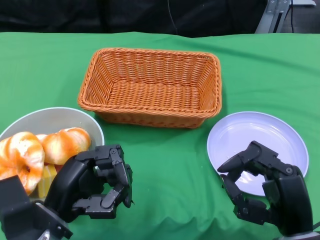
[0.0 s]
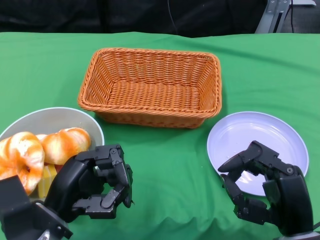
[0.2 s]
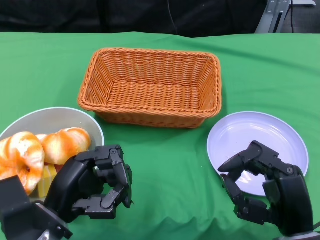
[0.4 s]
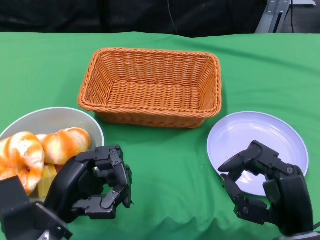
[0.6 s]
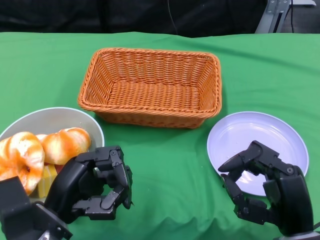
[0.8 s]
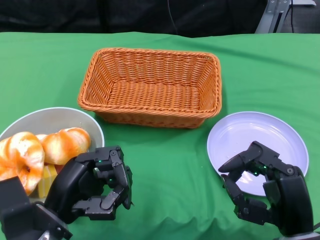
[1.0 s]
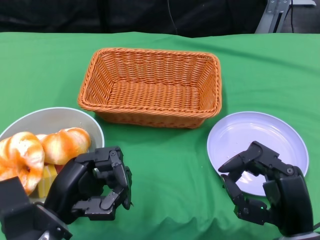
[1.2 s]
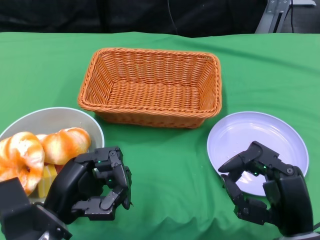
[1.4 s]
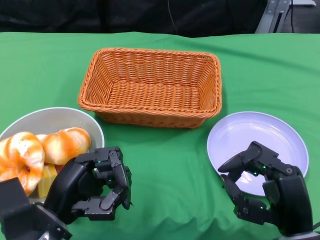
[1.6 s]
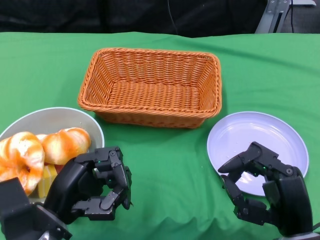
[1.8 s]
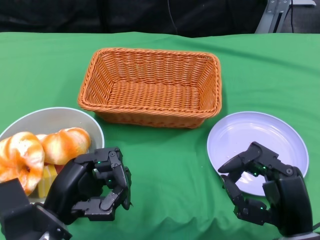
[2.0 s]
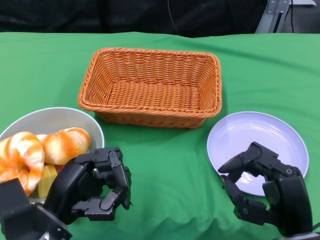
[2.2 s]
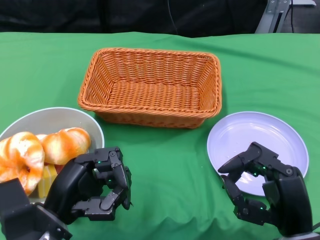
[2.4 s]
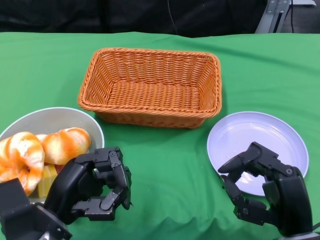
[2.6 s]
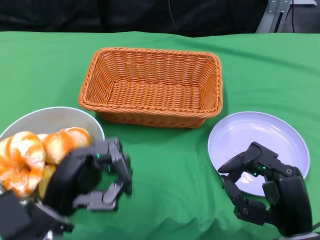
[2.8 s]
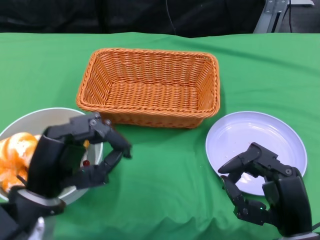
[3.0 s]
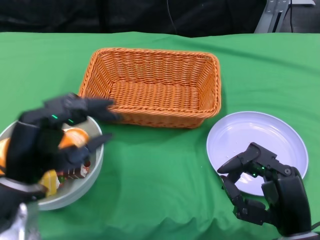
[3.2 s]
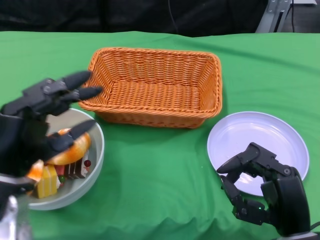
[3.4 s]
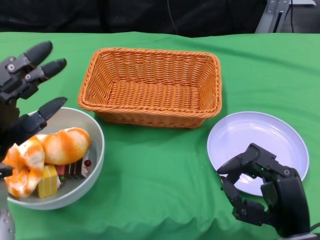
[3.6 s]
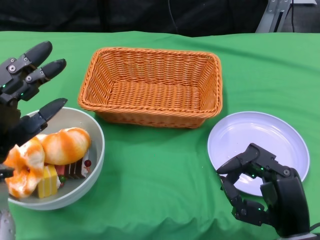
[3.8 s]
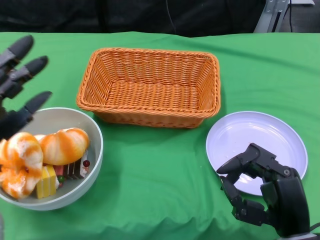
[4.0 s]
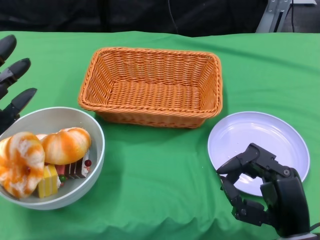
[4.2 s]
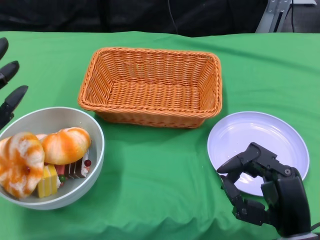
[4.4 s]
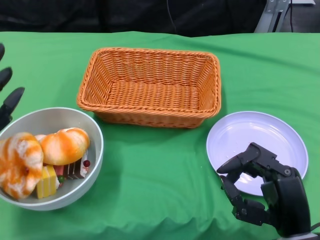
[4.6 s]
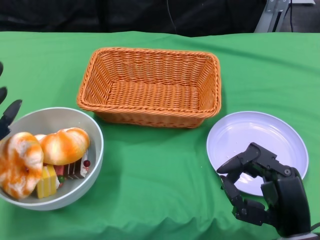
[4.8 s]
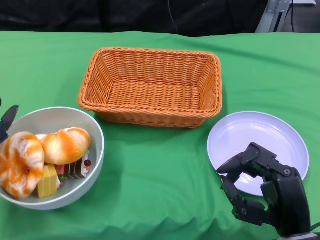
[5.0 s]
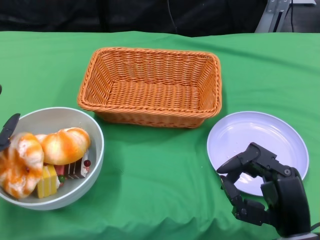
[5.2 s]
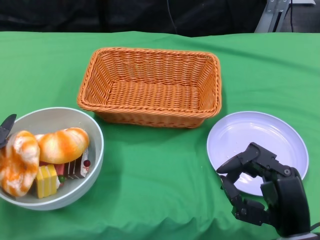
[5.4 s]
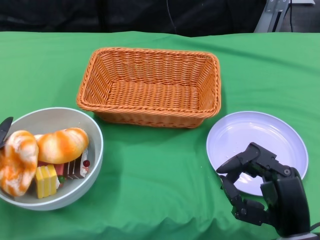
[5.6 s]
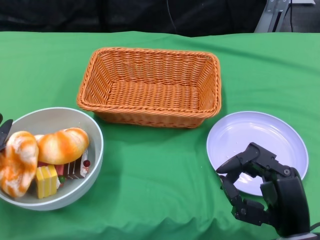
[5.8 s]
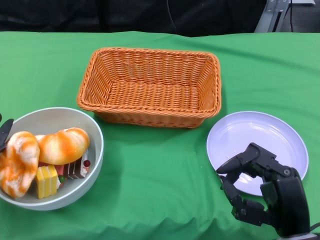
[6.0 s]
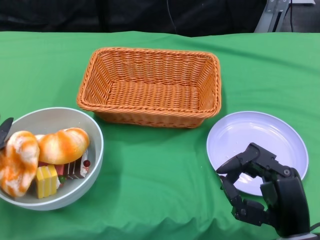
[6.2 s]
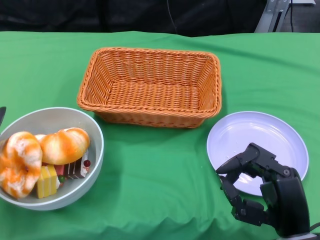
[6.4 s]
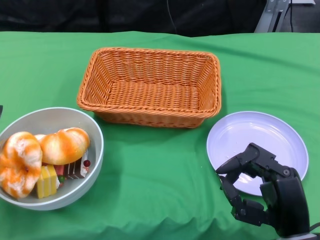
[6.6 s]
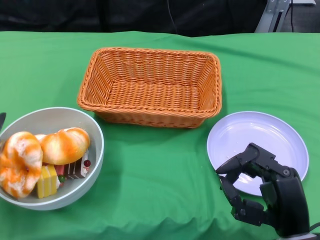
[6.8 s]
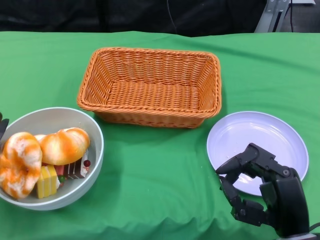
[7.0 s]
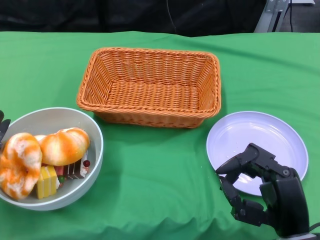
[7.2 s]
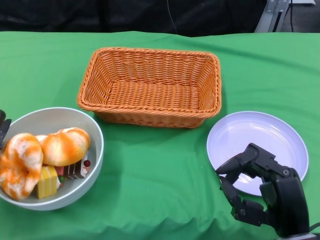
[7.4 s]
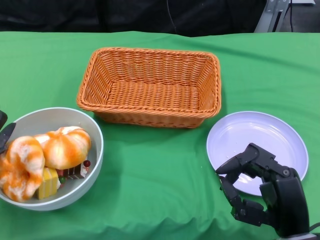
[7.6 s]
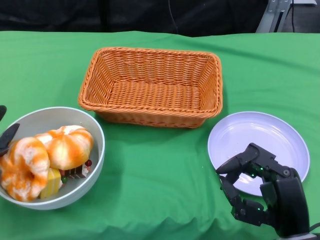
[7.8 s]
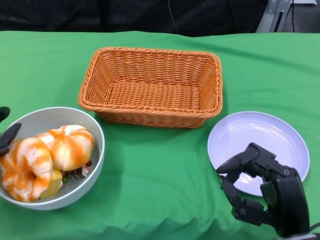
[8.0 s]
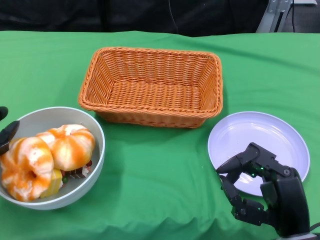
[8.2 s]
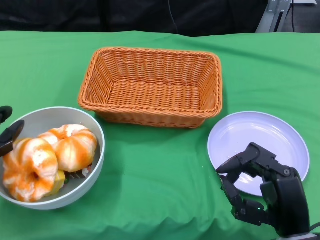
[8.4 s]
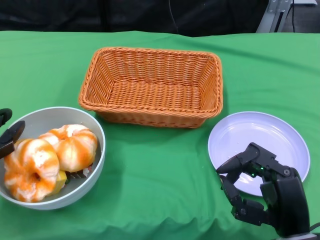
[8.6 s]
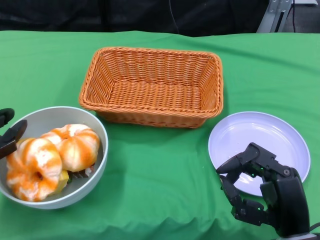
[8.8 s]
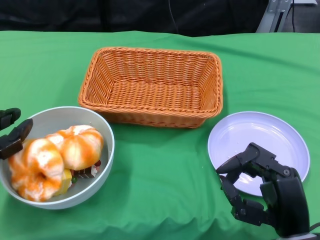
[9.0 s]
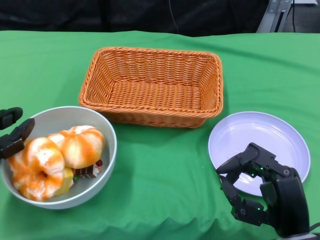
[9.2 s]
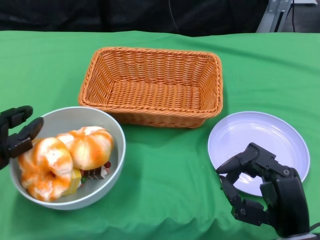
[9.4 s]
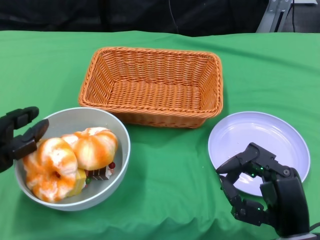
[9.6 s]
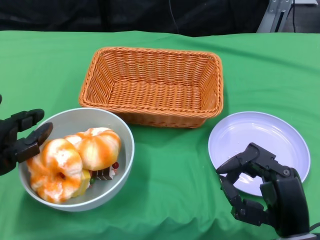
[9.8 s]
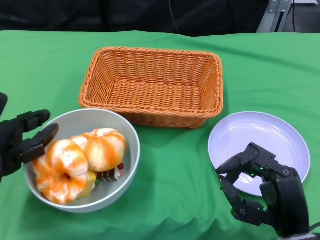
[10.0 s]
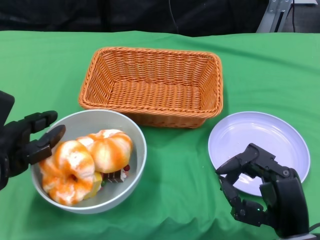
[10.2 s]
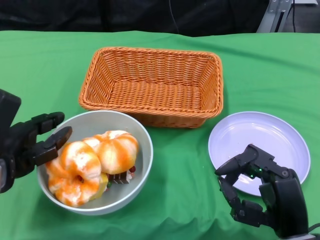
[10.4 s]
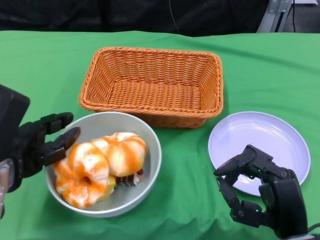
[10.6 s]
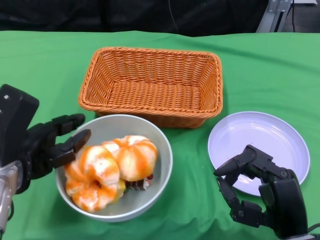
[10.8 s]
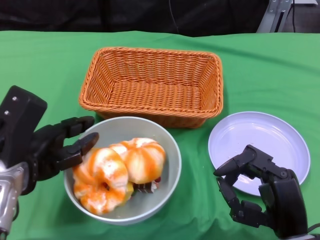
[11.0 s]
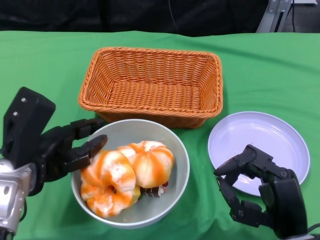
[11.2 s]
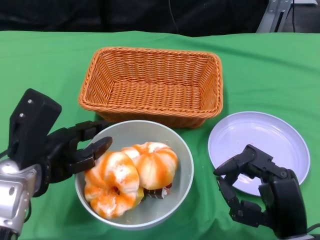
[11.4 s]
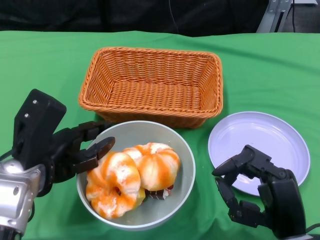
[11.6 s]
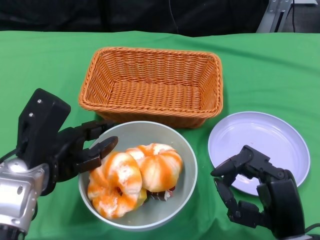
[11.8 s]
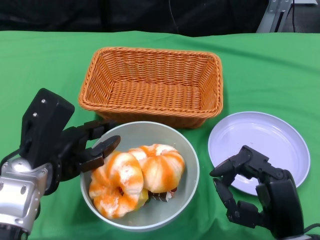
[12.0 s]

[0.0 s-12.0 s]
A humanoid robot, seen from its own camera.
3.0 to 4.4 s: The left hand shifts some 10 cm to the left.
6.0 to 7.6 s: The hands make only small movements.
10.4 to 12.0 s: The left hand travels to the right by some 5 cm.

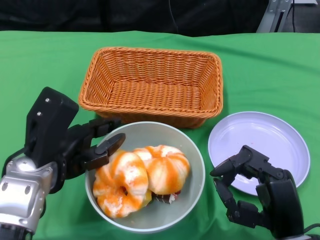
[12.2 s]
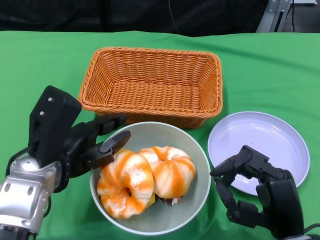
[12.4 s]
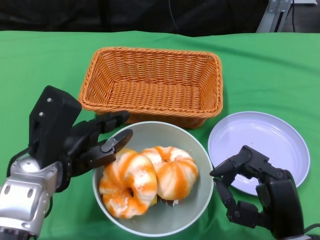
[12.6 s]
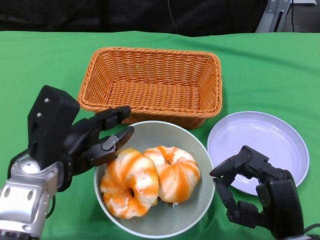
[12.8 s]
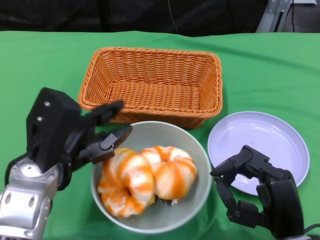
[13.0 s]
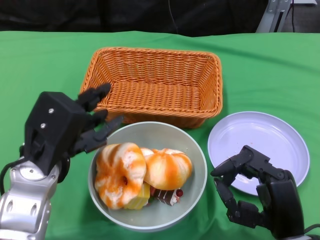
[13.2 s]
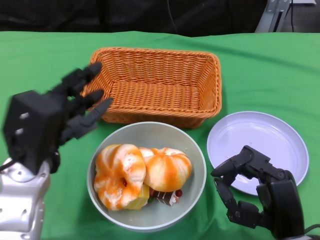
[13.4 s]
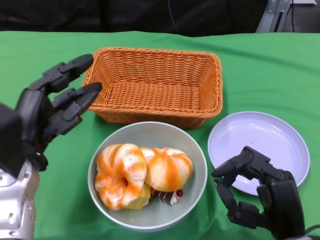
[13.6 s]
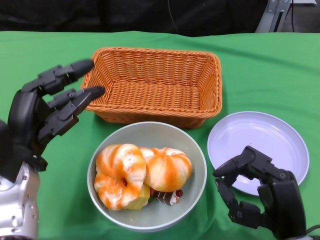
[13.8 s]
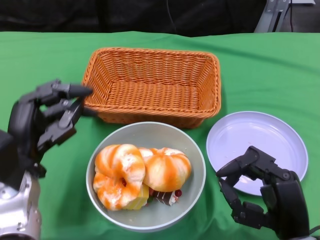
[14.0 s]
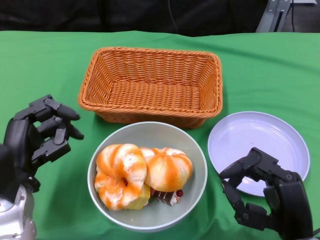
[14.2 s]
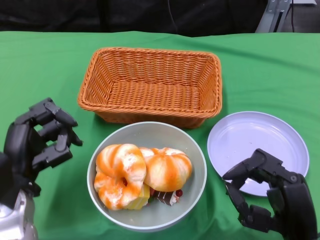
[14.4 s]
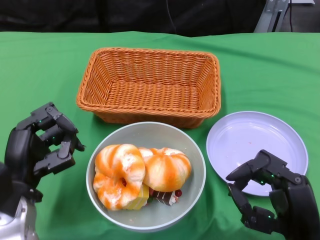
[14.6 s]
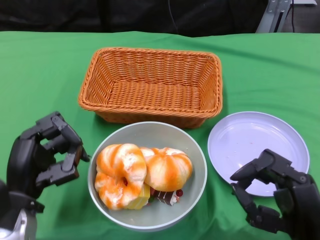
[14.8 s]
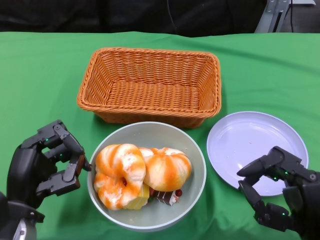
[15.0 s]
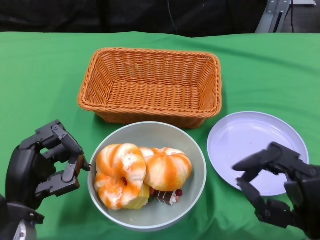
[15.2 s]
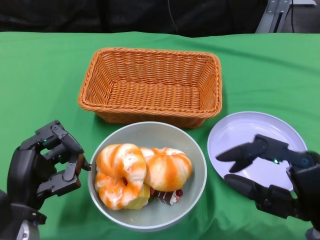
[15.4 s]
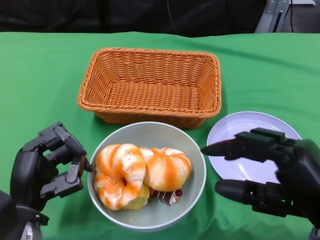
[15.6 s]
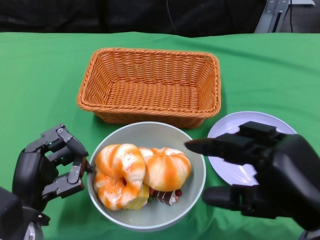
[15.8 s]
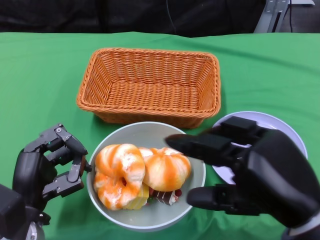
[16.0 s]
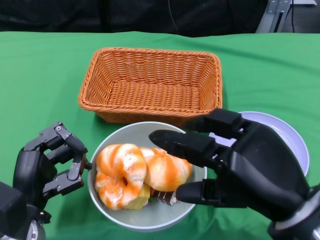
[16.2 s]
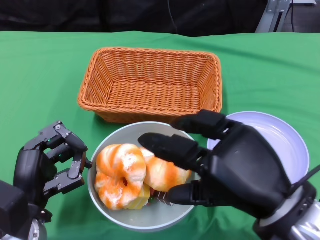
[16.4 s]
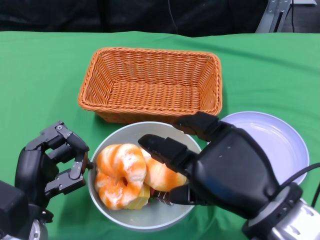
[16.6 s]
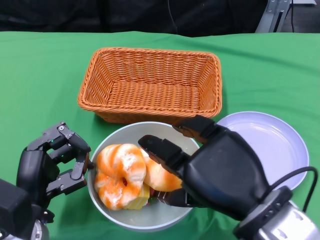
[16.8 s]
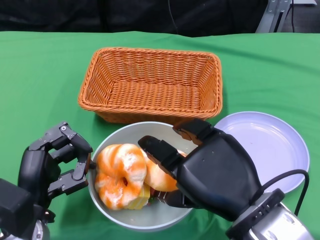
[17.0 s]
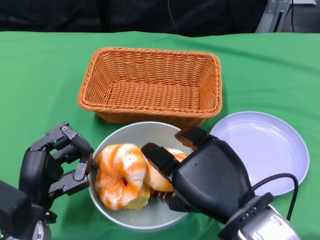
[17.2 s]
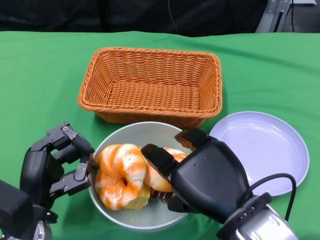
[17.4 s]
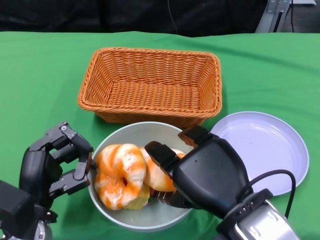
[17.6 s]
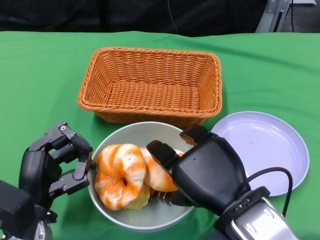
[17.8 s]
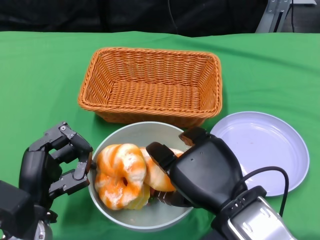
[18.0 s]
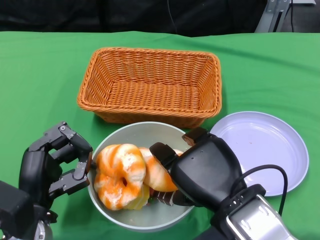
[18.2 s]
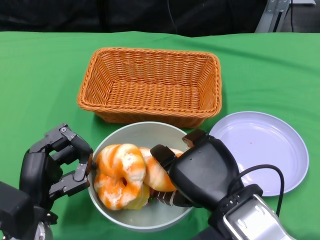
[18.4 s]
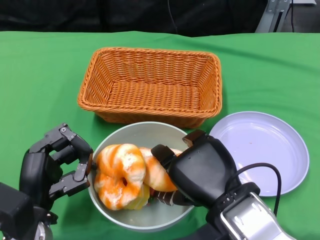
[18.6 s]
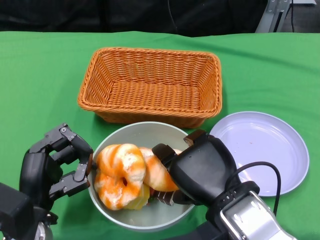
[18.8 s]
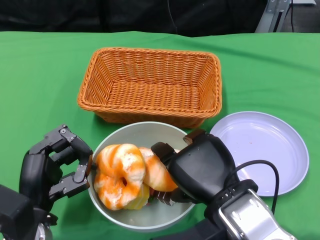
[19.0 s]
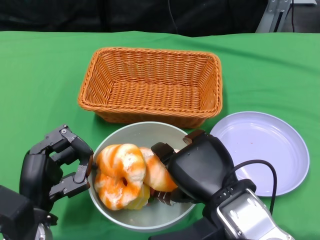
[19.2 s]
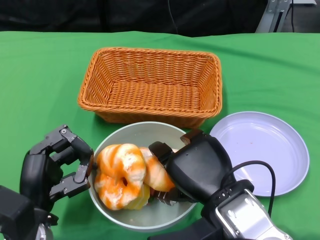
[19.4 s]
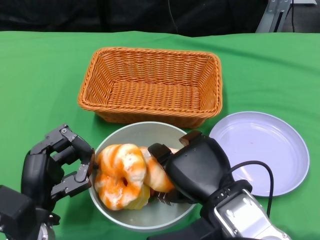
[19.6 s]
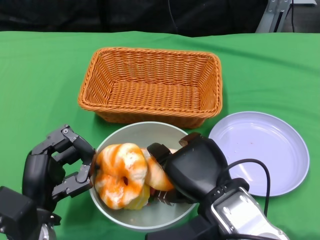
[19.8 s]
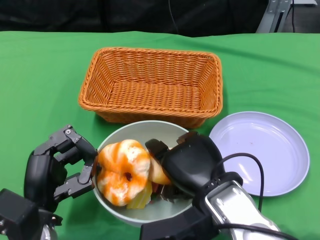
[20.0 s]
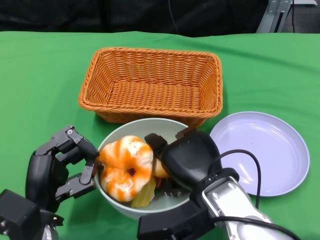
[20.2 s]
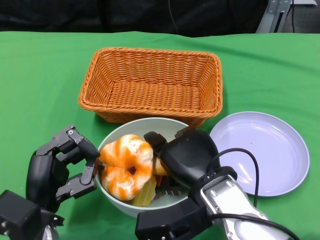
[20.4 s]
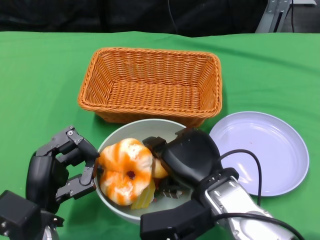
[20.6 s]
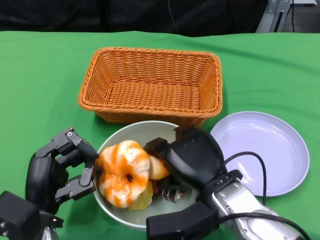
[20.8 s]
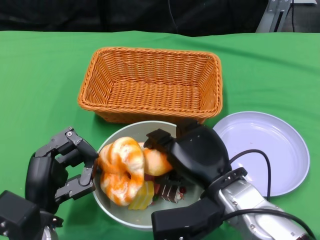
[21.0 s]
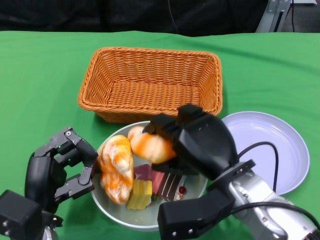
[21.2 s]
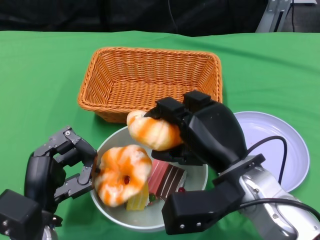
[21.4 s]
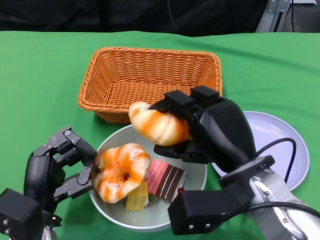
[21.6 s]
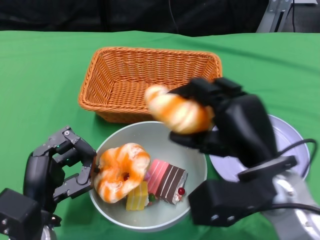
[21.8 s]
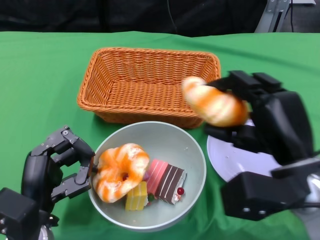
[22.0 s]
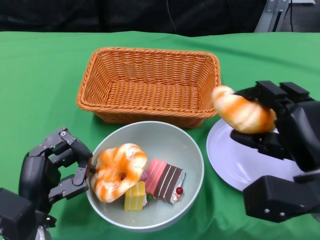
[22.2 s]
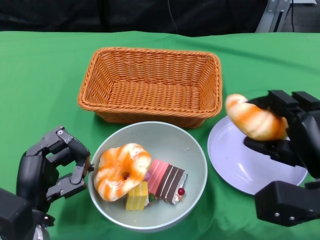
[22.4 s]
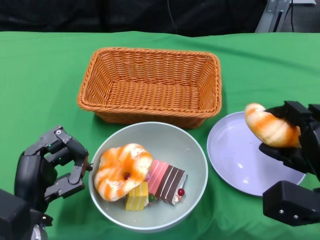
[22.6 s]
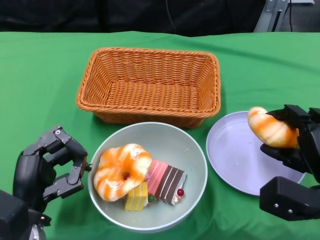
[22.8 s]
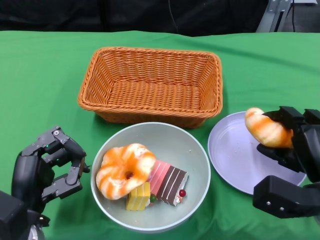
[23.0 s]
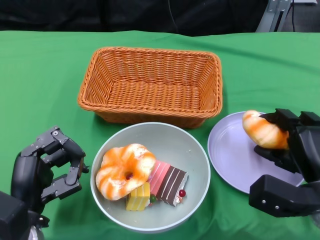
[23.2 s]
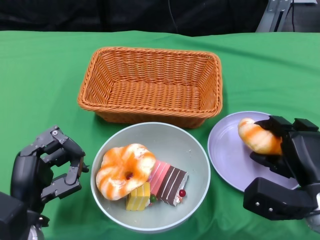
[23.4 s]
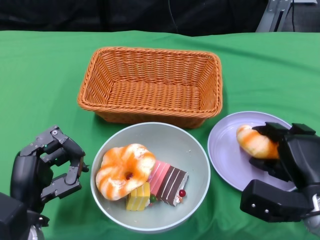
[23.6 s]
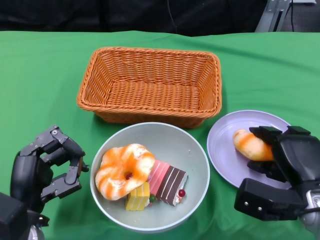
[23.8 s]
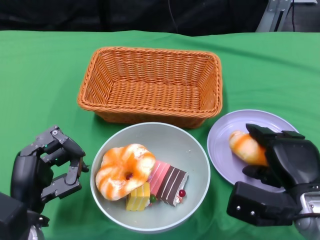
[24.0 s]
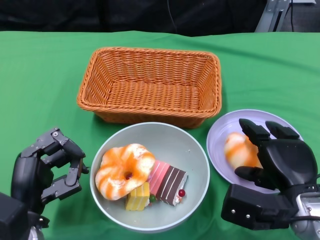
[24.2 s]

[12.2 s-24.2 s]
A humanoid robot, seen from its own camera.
13.8 to 15.2 s: The left hand heads downward and backward, covering some 10 cm.
15.2 to 16.6 s: The right hand shifts some 10 cm upward and to the left.
18.2 to 19.8 s: The hands stay close to where they were, moving slightly.
21.2 to 22.6 s: The right hand shifts about 15 cm to the right.
22.6 to 24.2 s: The right hand shifts by some 5 cm.
